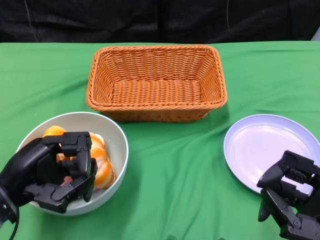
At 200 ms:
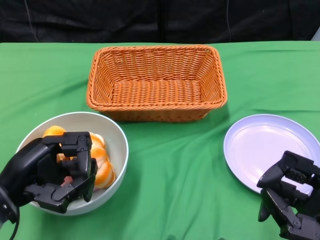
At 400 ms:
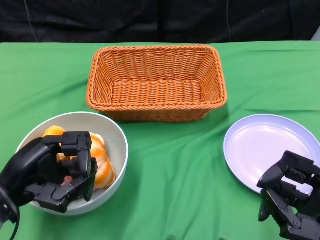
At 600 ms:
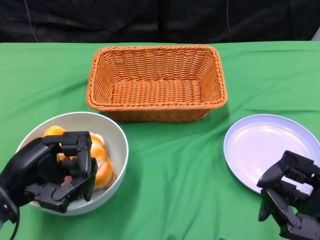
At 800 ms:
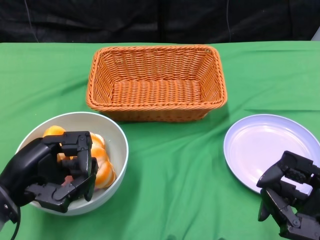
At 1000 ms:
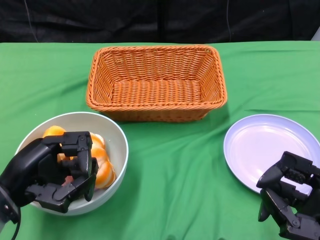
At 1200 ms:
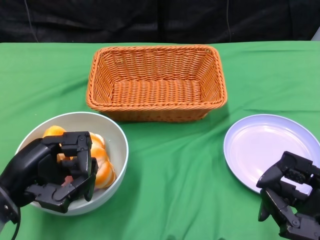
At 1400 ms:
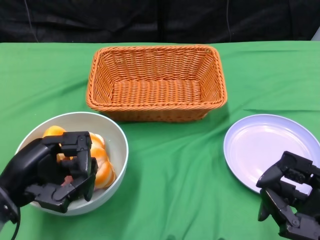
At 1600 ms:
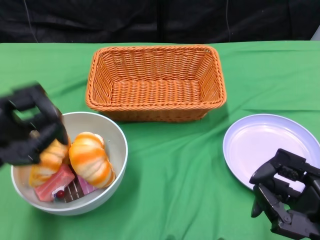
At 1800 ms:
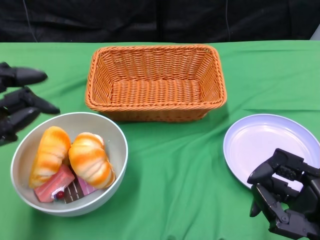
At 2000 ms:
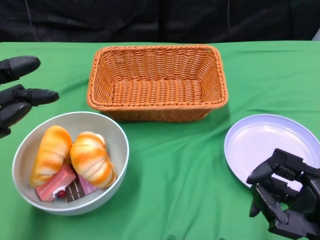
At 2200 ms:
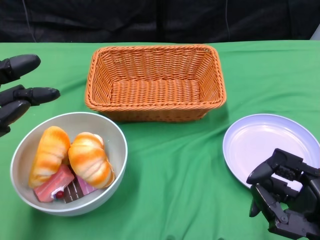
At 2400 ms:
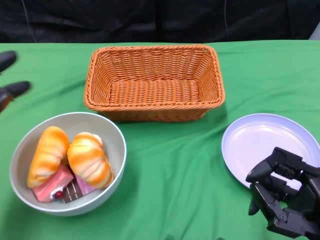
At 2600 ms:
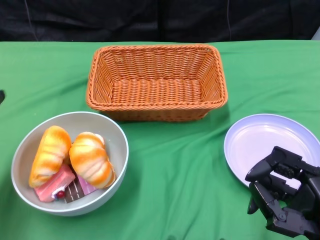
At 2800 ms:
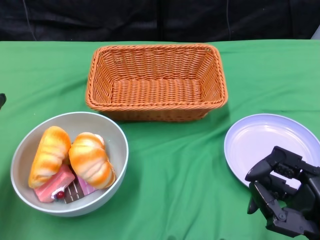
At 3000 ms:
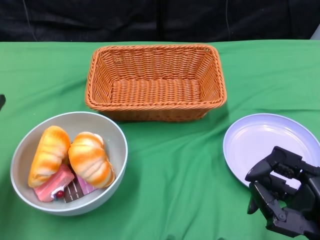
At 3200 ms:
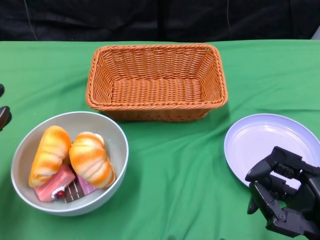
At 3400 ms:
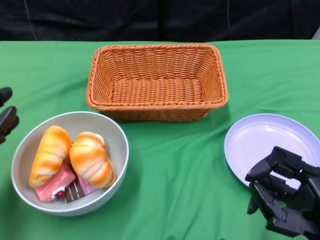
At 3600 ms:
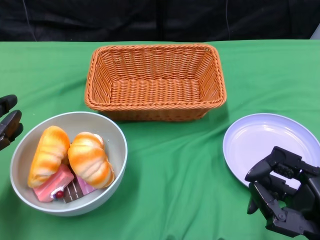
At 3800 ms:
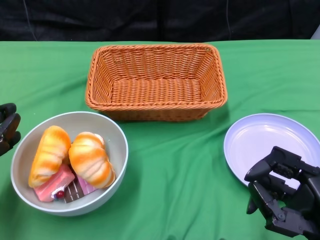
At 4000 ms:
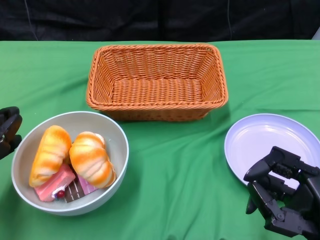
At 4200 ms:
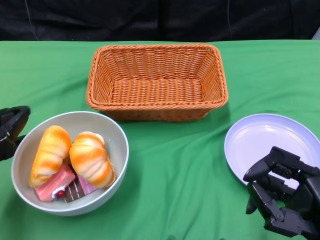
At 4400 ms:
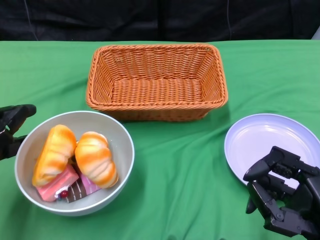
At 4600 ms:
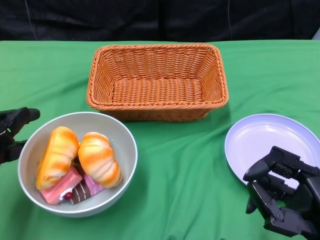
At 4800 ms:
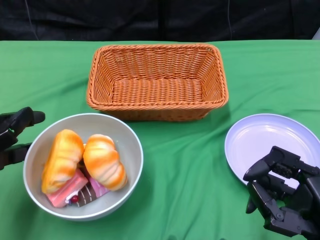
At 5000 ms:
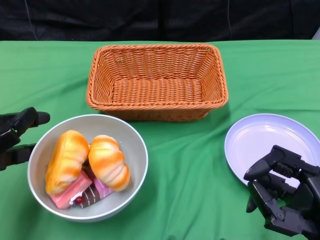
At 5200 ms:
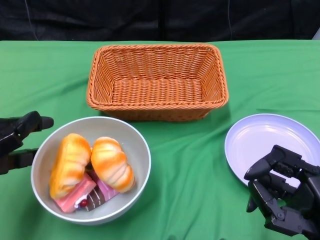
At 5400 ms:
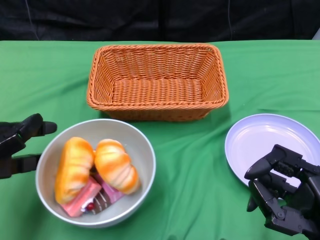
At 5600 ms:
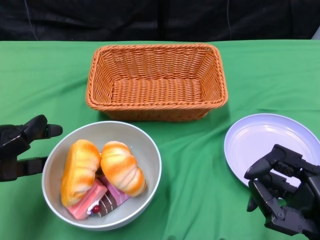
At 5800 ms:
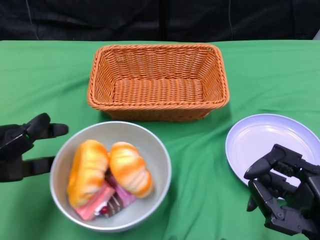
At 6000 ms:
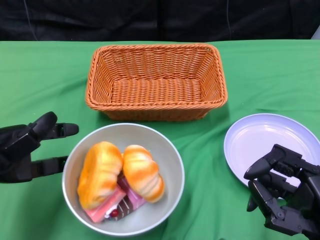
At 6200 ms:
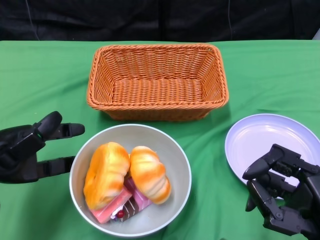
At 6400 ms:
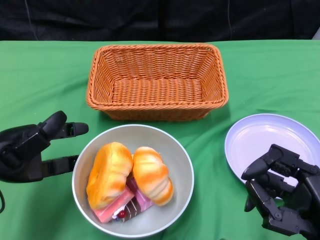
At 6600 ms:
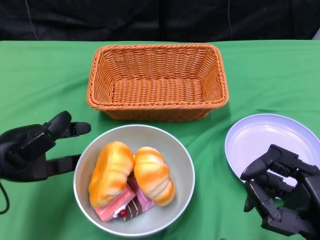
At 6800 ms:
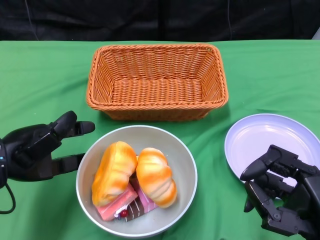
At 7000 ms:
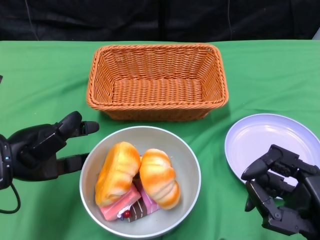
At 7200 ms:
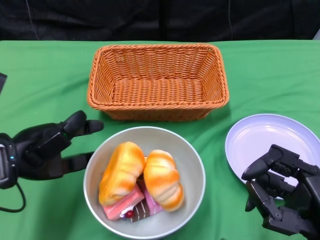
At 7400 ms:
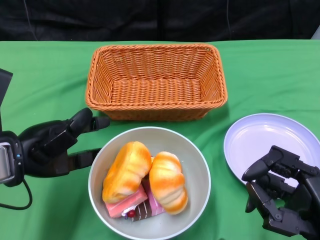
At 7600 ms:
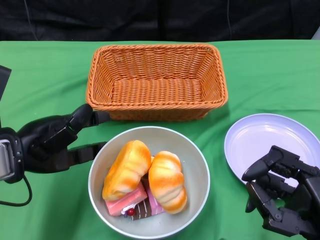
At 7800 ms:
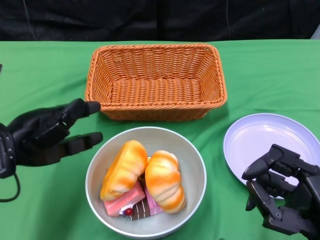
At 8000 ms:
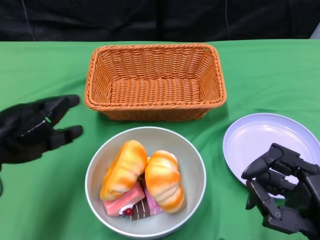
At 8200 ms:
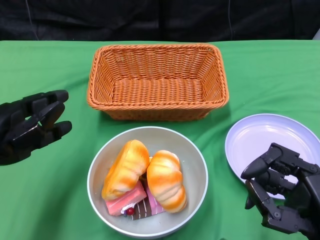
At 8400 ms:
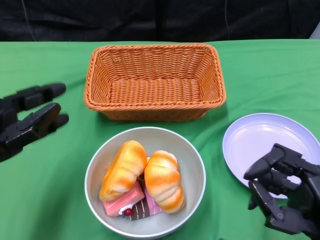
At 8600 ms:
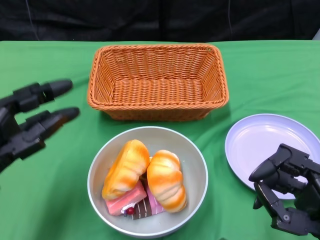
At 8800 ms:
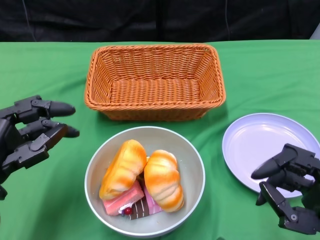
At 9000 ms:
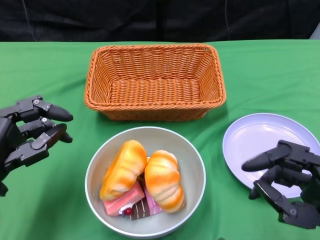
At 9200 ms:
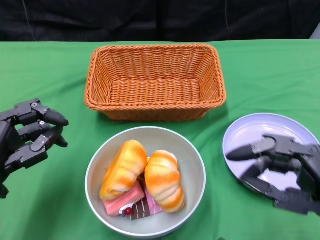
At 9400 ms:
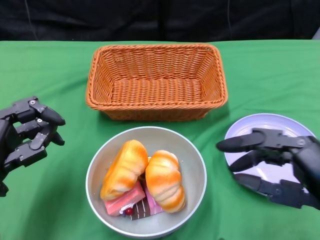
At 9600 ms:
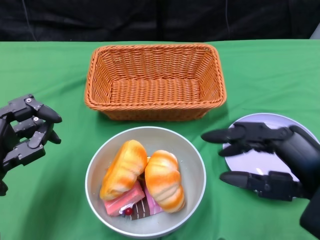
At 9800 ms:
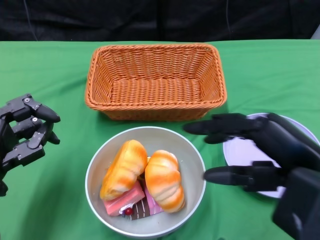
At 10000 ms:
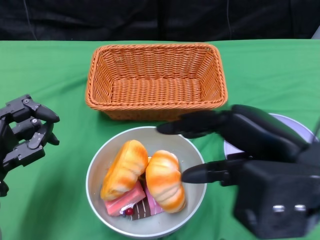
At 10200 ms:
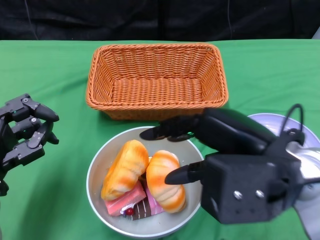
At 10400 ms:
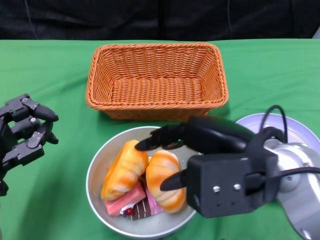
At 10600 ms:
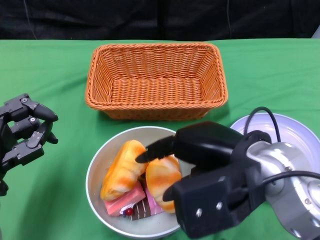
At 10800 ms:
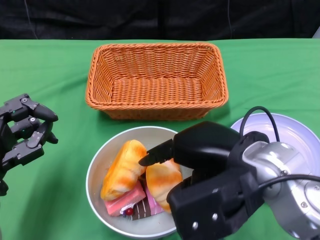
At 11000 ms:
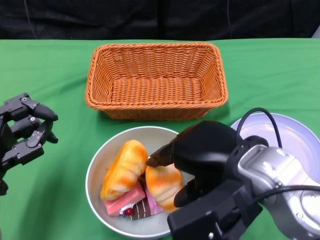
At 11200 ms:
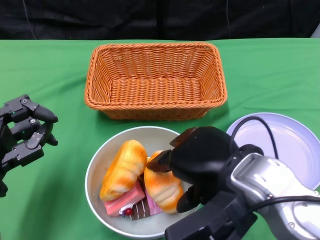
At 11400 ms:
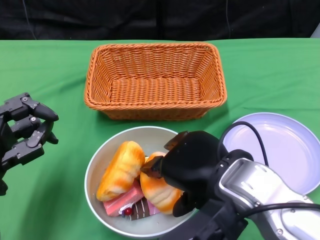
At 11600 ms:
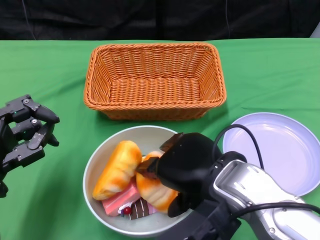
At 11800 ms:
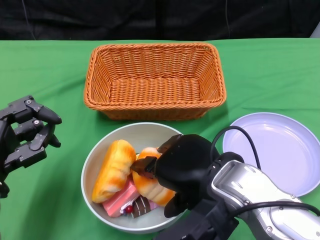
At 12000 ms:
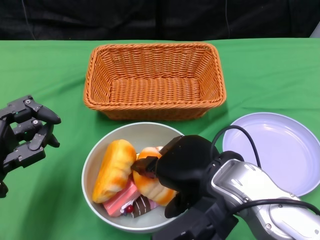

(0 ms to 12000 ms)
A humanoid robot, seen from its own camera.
Step, 0 ms - 7800 ms: Push the bowl to the center of the table using the left gripper.
1600 ms - 3000 ms: The left hand travels to the left by roughly 5 cm.
7600 ms - 9000 ms: The left hand ends up about 5 cm from where it was.
9000 ms - 10400 ms: The right hand moves to the left, upward and forward, approximately 15 cm.
10400 ms - 12000 ms: The right hand moves roughly 5 cm.

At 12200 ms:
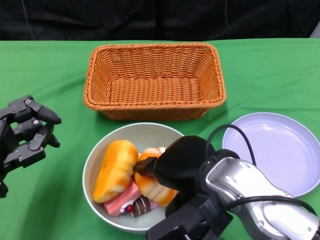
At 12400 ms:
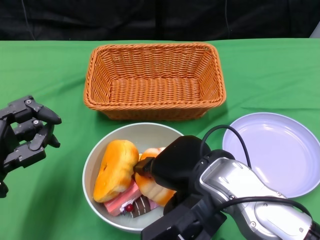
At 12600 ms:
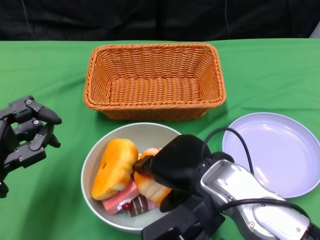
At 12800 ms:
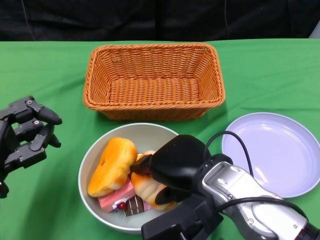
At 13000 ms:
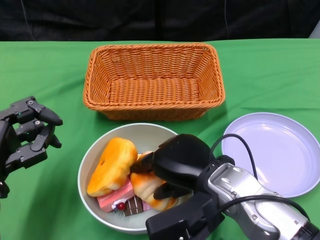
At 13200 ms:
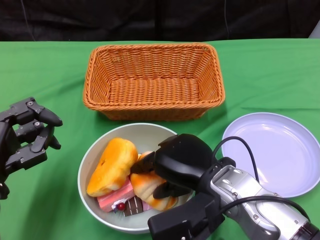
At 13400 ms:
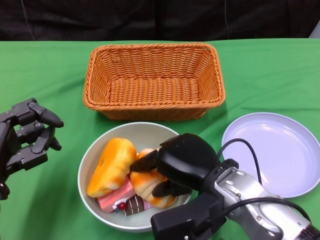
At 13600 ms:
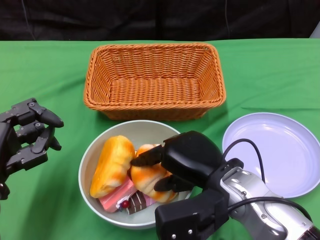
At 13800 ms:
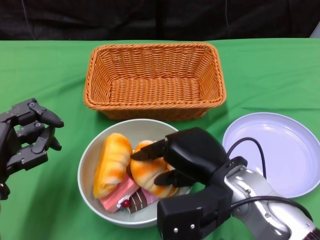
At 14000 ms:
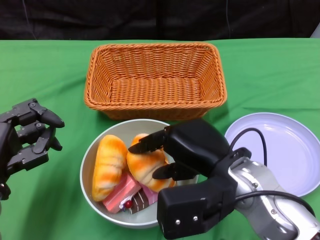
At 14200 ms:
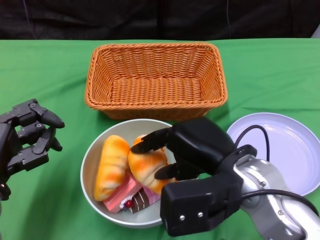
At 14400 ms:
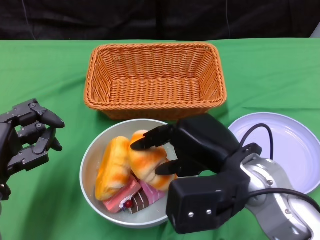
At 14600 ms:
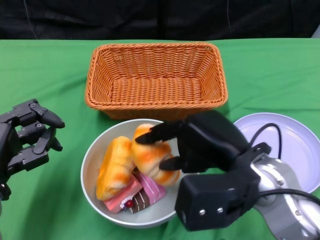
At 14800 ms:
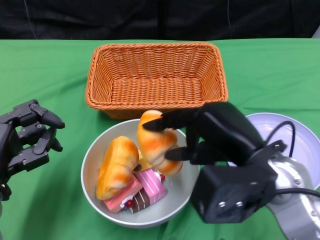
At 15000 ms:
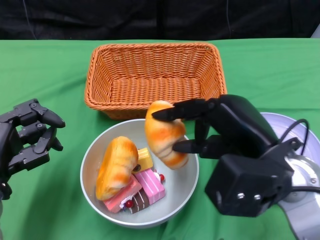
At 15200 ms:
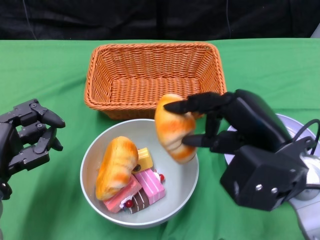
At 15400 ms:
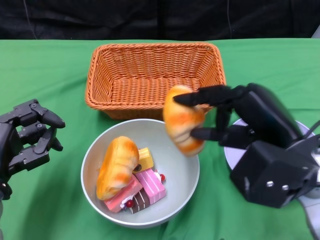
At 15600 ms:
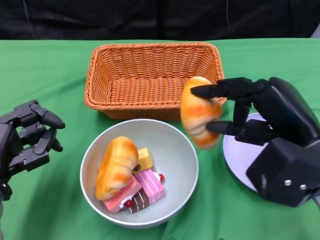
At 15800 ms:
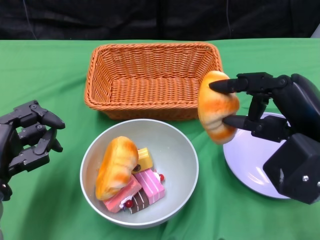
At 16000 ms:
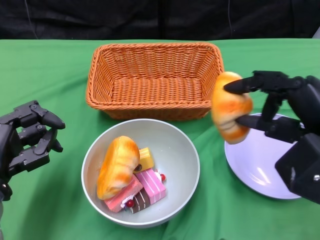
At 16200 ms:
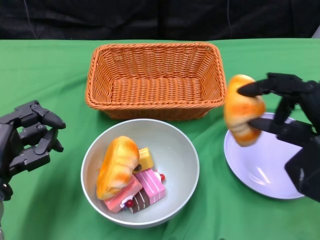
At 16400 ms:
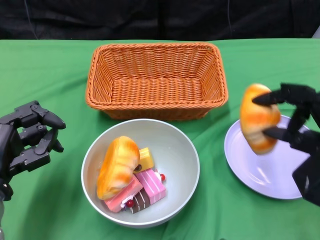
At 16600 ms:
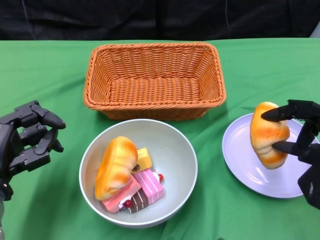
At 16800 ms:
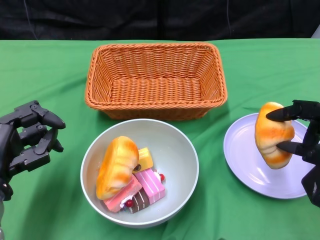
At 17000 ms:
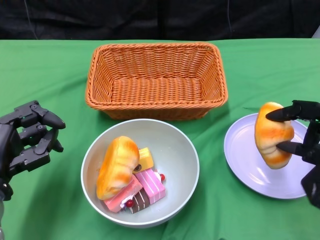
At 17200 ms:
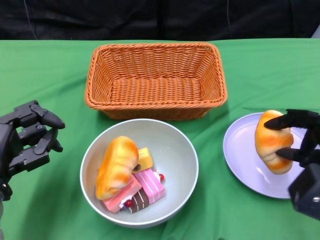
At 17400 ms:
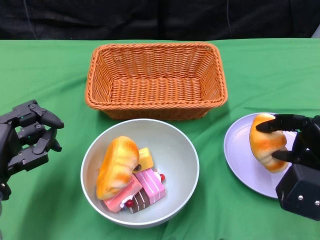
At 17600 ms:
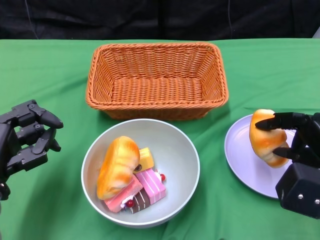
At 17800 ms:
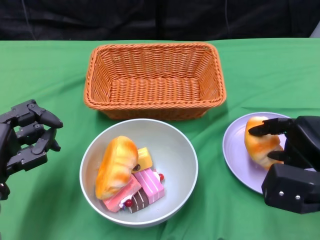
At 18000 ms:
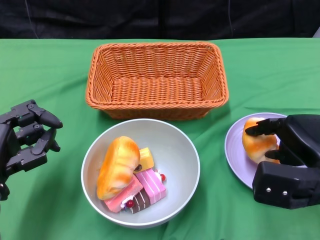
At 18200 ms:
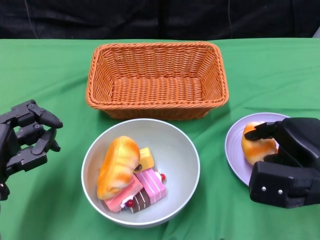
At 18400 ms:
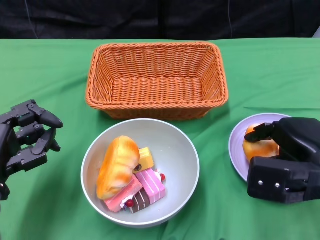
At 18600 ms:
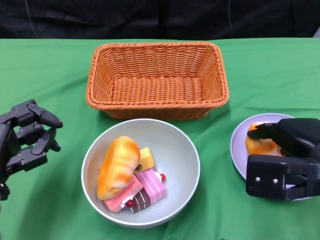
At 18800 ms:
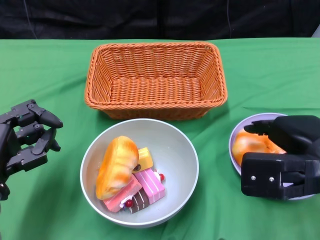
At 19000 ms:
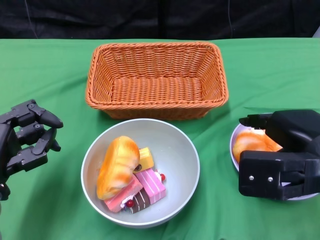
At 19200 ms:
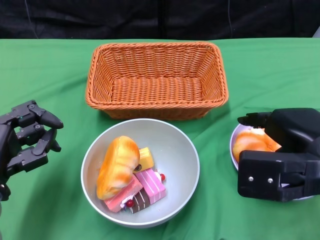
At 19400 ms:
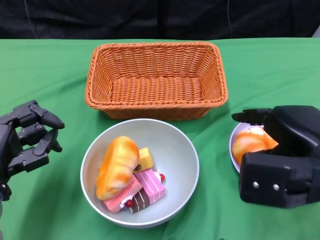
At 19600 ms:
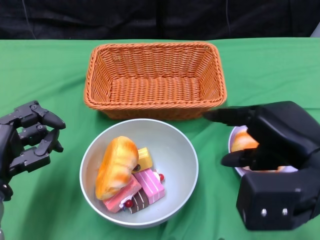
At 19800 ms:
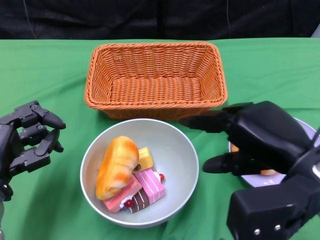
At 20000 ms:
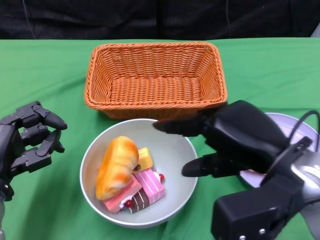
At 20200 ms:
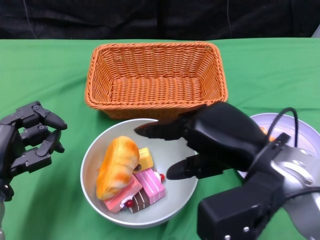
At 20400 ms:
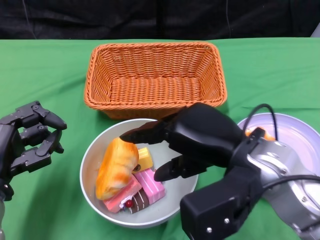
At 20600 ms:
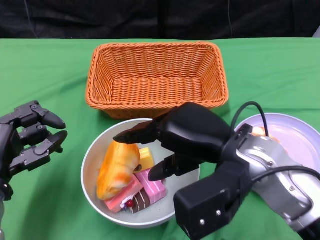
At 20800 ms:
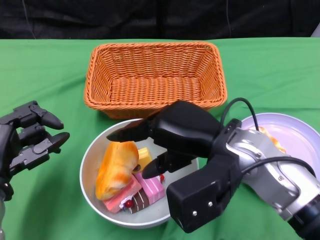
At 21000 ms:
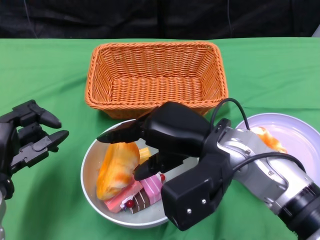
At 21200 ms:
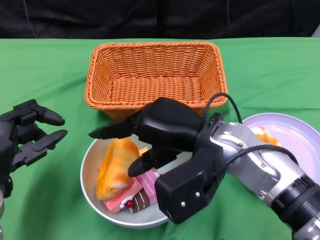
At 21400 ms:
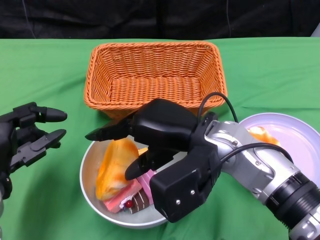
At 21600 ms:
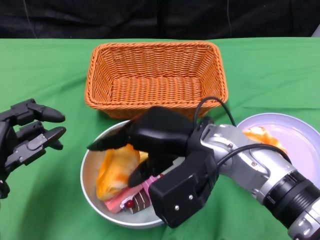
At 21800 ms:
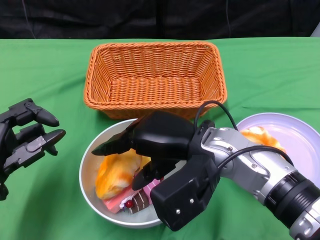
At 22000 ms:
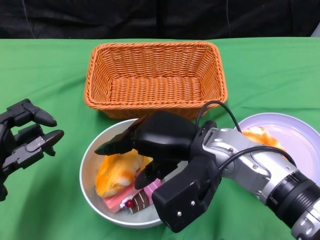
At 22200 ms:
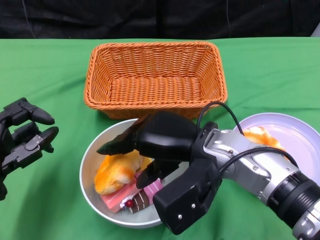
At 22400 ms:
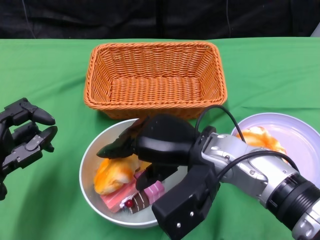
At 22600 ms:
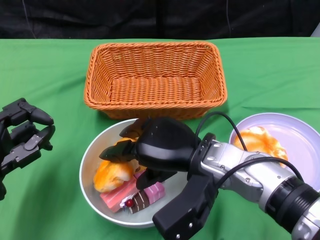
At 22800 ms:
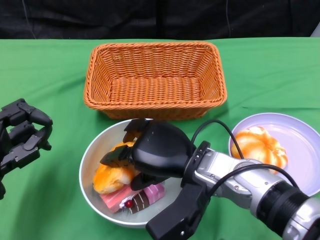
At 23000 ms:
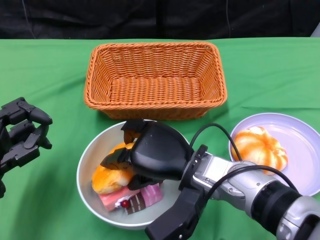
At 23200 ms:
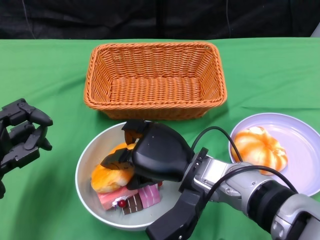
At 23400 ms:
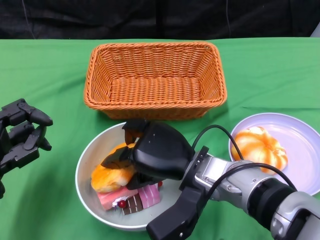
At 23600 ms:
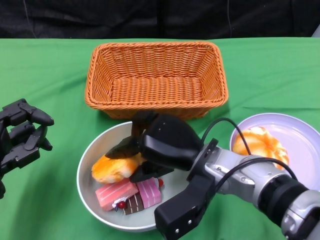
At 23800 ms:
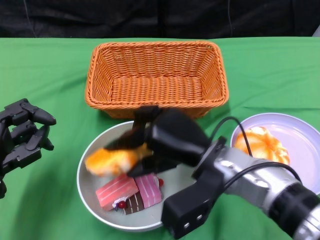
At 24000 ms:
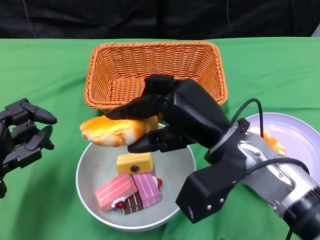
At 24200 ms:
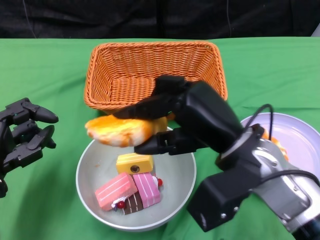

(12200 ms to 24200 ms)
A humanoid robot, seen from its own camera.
Step, 12200 ms - 19600 ms: Pick up the bread with the right gripper and place it on the plate.
13800 ms - 15200 ms: The right hand goes about 10 cm to the right and upward.
15200 ms - 16600 ms: The right hand goes about 10 cm to the right.
16600 ms - 18200 ms: The right hand travels forward by roughly 5 cm.
18200 ms - 19800 ms: The right hand is displaced upward by approximately 10 cm.
19800 ms - 21200 ms: The right hand moves to the left and forward, some 15 cm.
22600 ms - 24200 ms: The right hand ends up some 5 cm from where it was.
